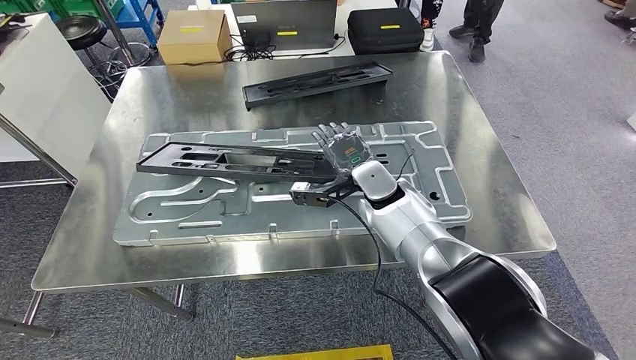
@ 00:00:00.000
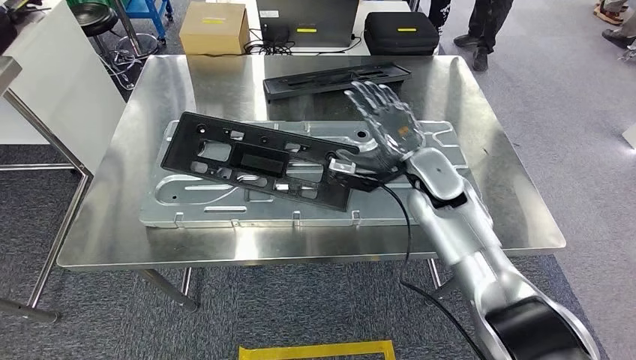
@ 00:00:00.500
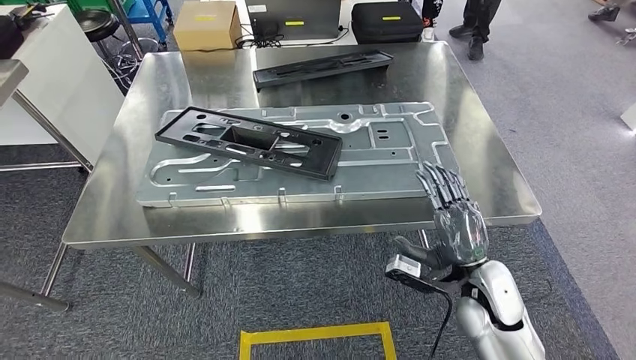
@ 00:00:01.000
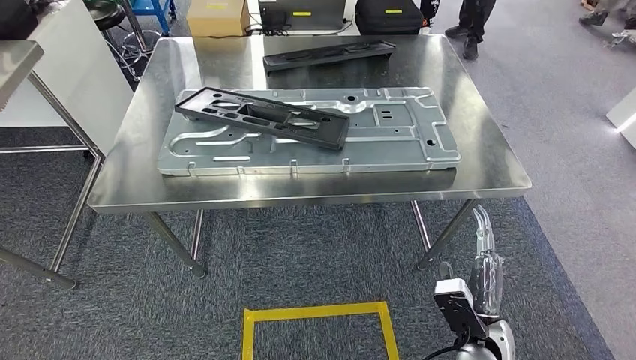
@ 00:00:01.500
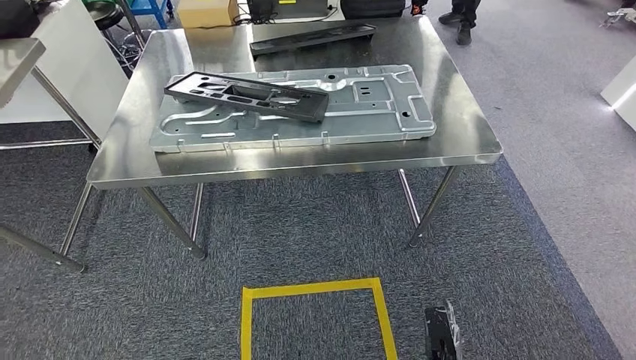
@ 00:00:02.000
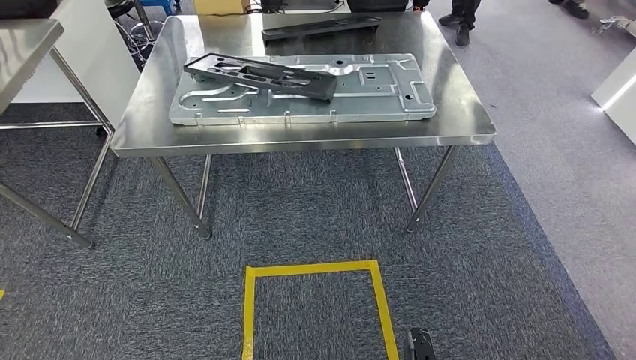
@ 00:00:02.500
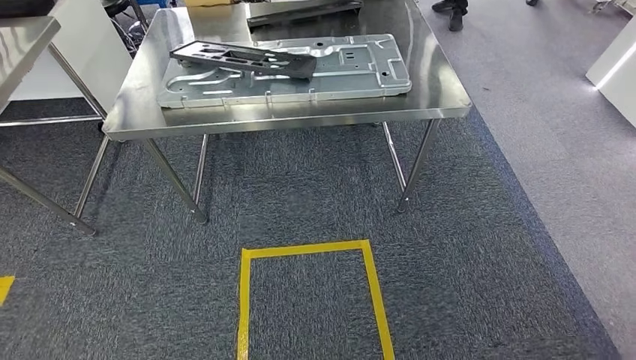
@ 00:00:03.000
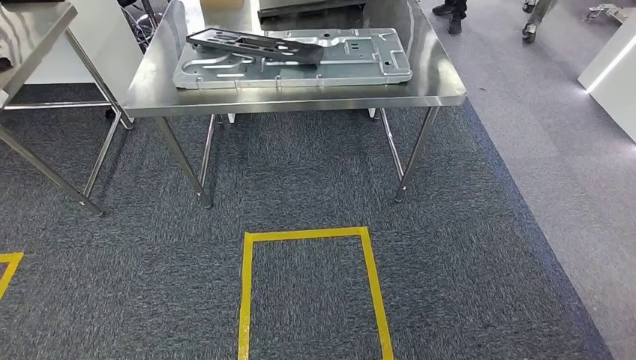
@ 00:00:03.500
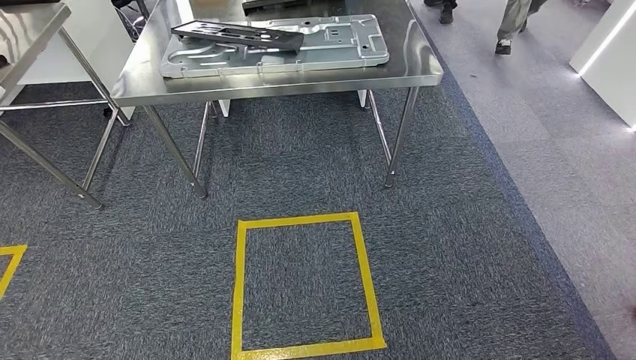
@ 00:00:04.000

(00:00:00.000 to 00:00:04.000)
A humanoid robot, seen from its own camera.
Step, 00:00:01.500 - 00:00:04.000: Move to the initial position of the shelf.

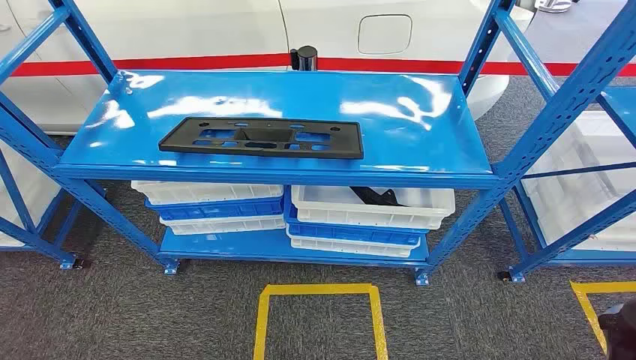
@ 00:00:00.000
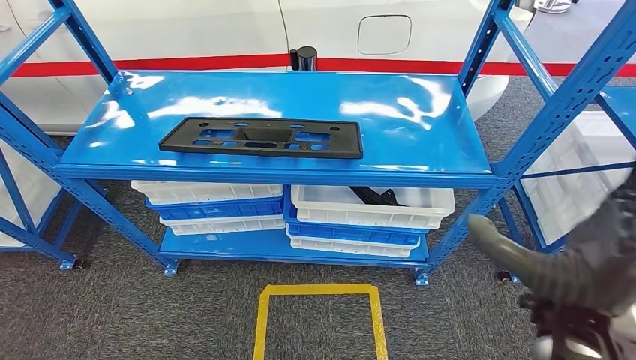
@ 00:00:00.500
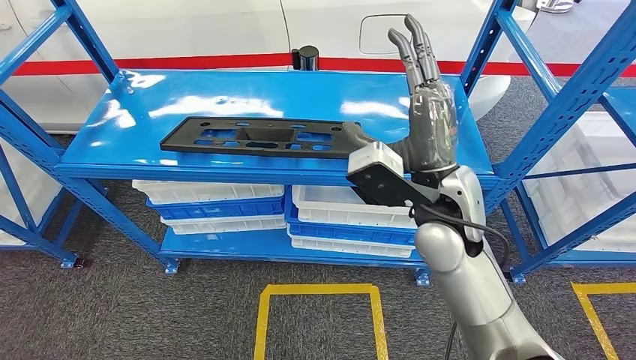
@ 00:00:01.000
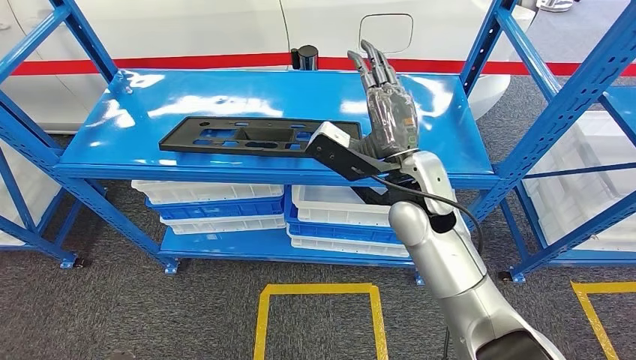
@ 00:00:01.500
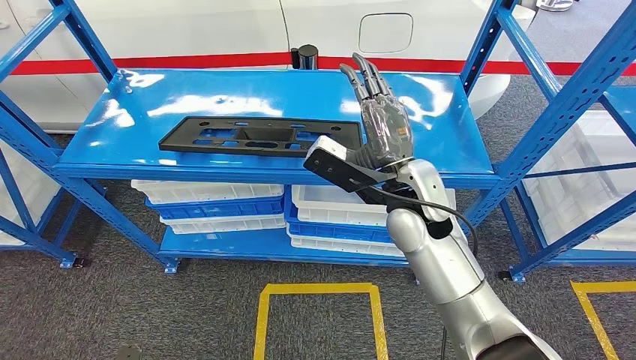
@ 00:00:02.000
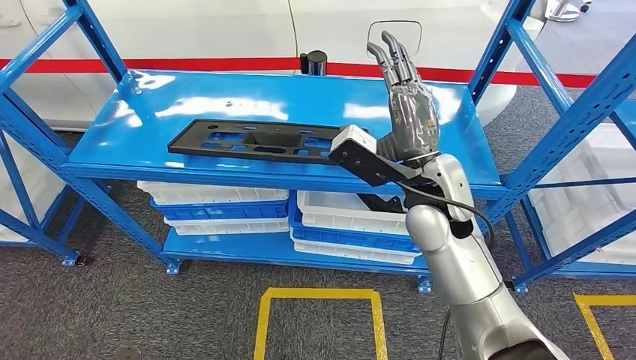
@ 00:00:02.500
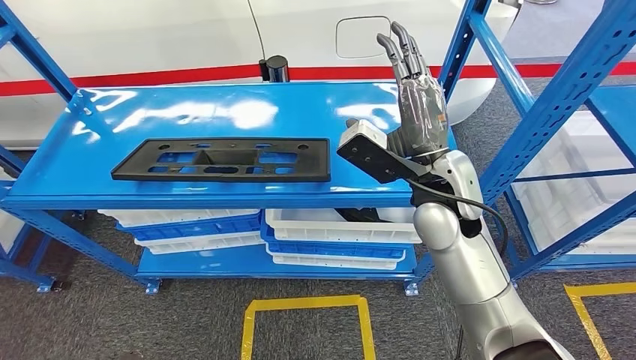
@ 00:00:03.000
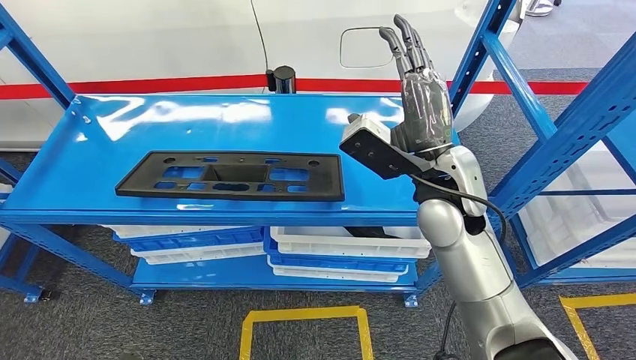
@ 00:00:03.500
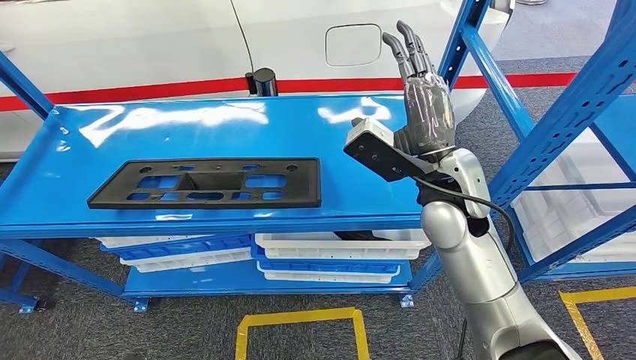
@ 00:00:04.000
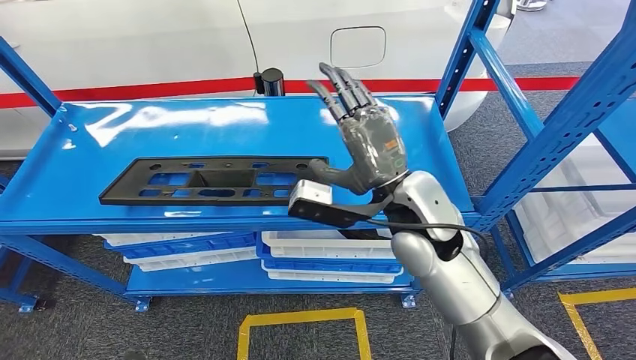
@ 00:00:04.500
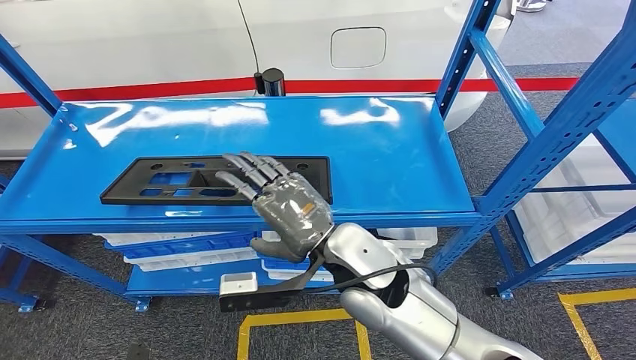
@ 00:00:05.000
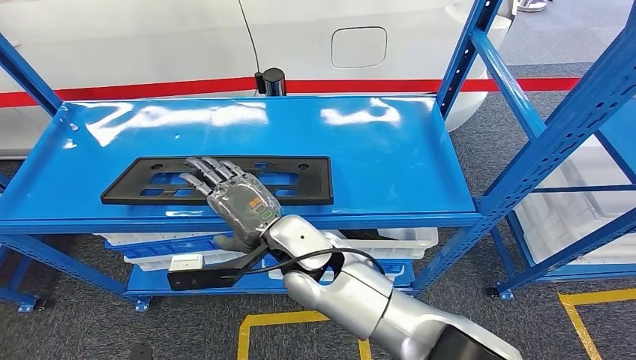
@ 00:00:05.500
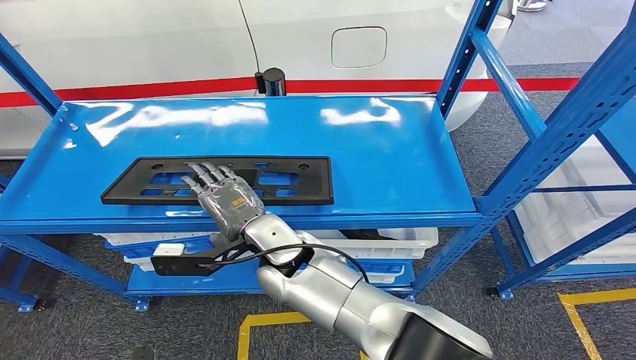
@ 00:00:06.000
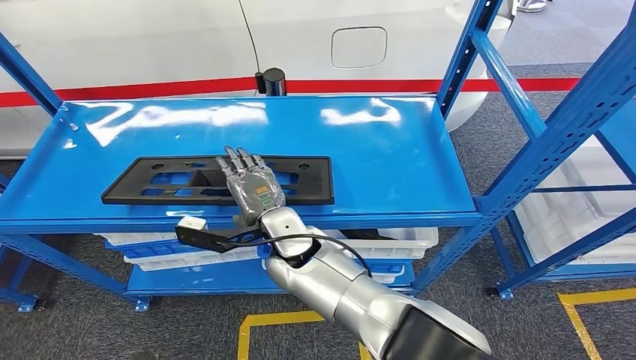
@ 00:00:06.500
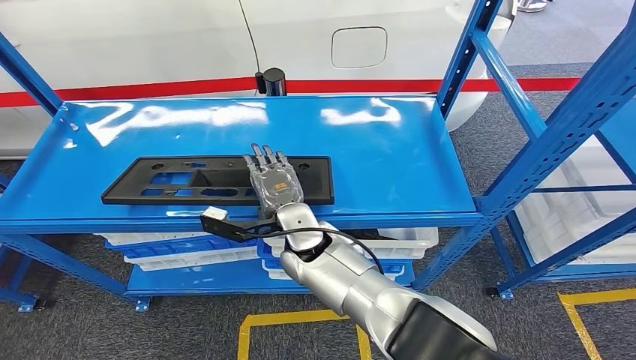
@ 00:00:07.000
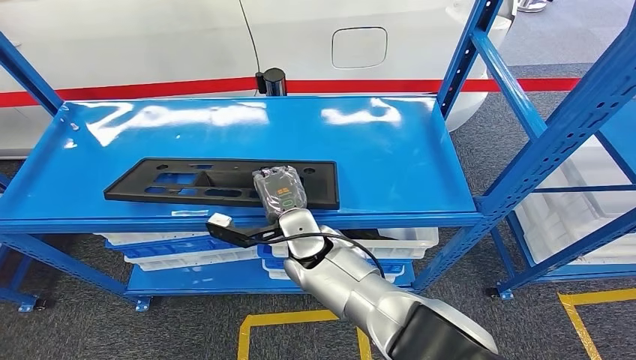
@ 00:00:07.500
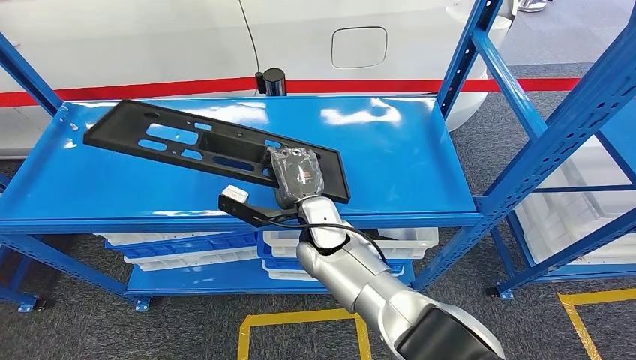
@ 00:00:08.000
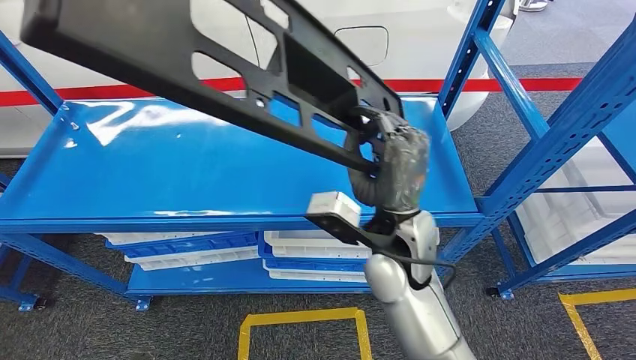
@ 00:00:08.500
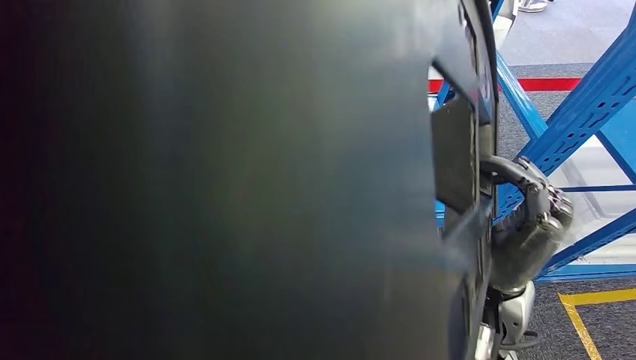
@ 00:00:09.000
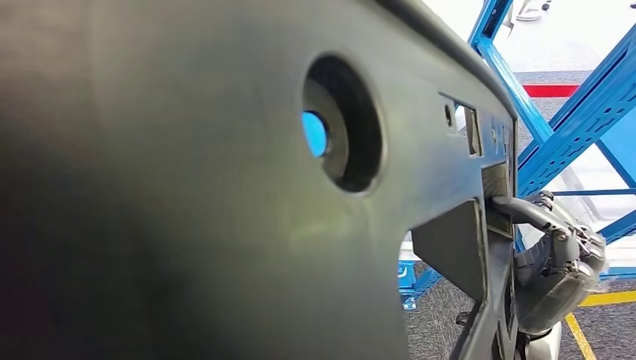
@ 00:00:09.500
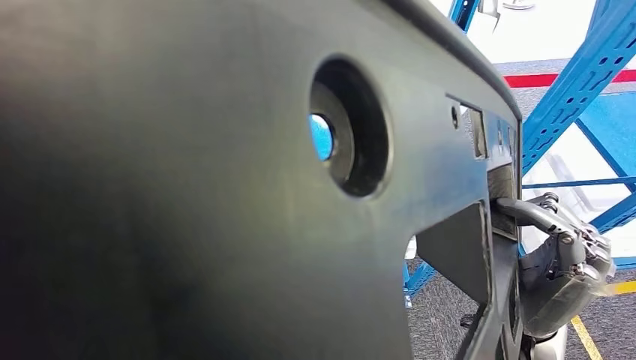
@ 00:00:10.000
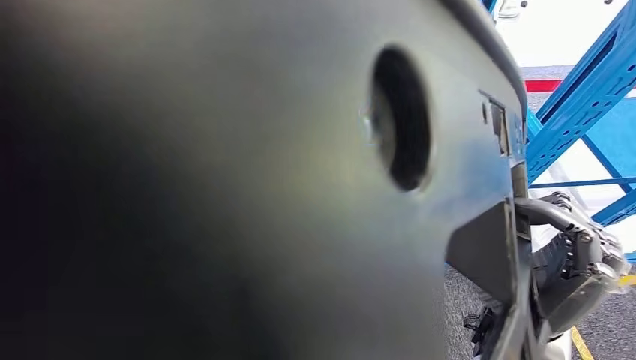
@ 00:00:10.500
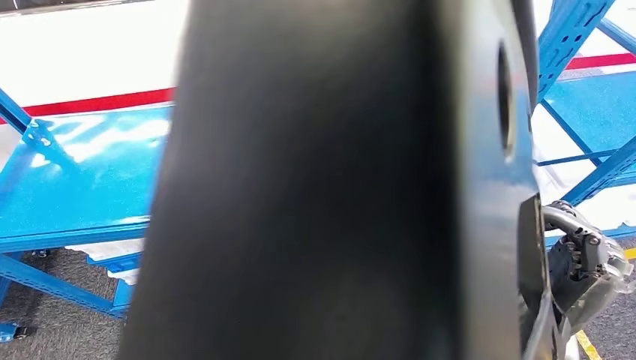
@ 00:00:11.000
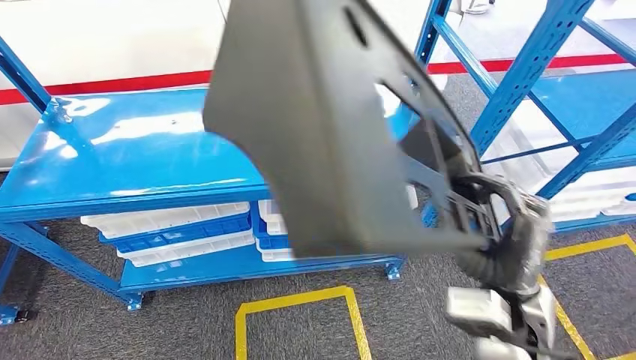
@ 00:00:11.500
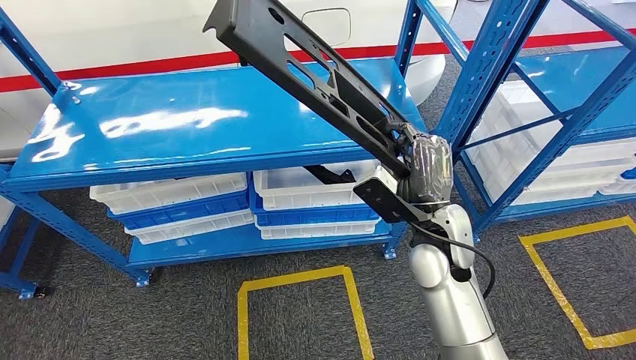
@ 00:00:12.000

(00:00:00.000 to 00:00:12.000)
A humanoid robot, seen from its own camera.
Step, 00:00:00.000 - 00:00:10.000: Pick up the large material from the shelf.
00:00:06.000 - 00:00:08.000: The right hand goes about 5 cm to the right.

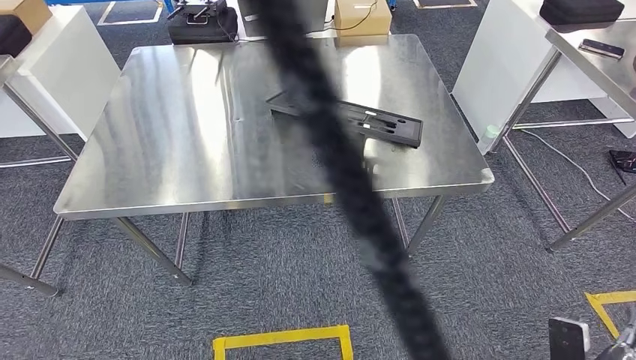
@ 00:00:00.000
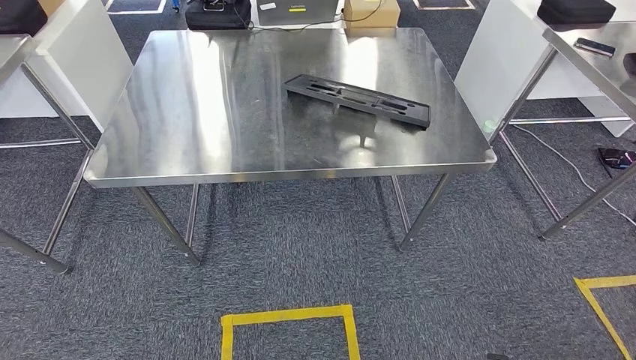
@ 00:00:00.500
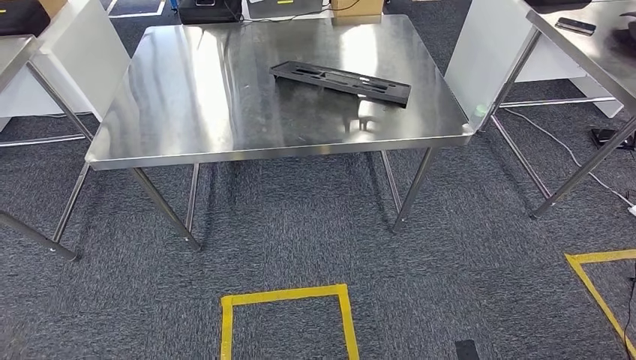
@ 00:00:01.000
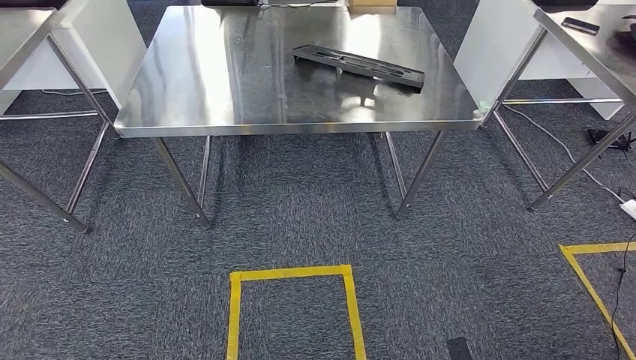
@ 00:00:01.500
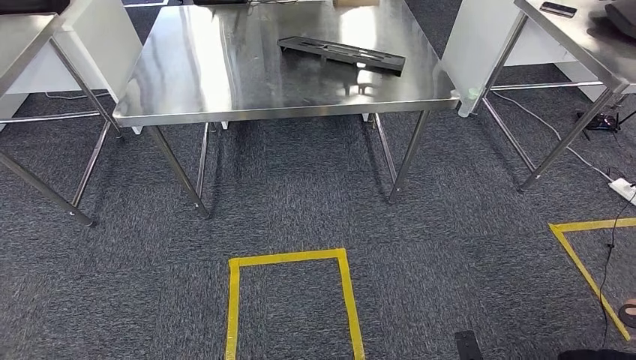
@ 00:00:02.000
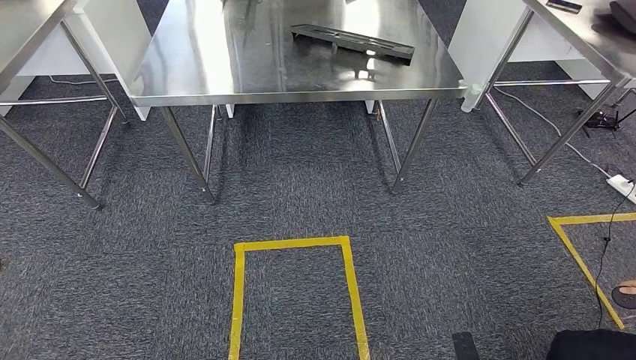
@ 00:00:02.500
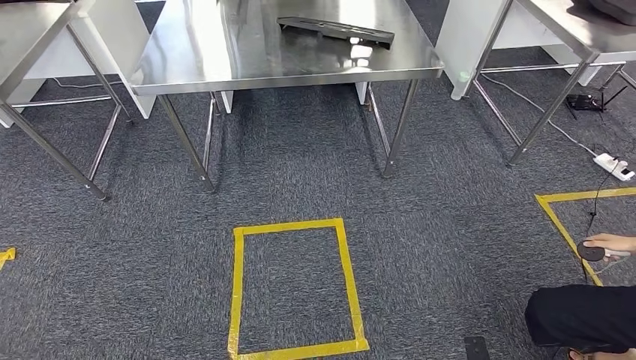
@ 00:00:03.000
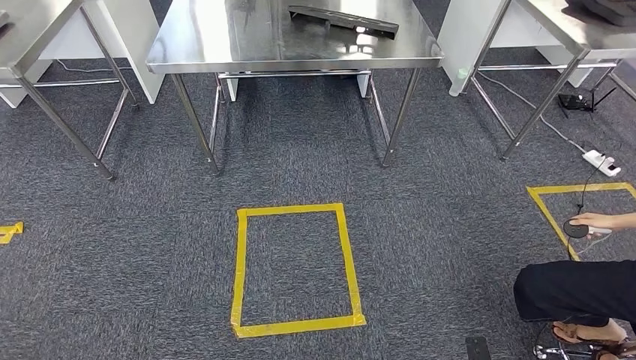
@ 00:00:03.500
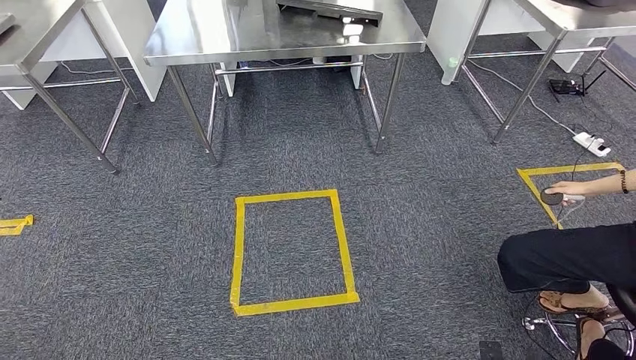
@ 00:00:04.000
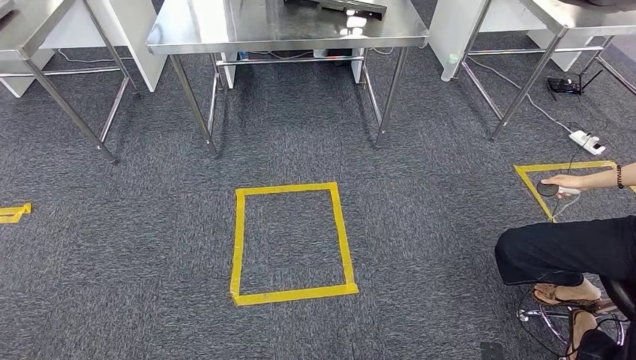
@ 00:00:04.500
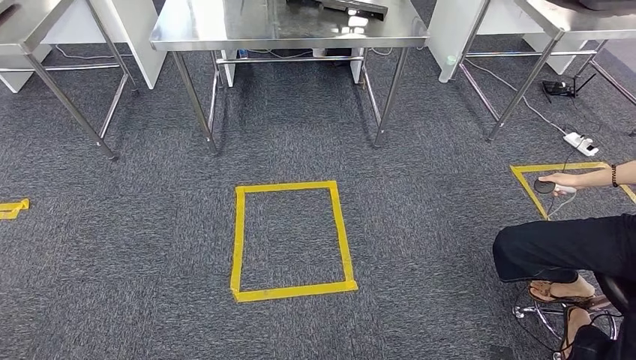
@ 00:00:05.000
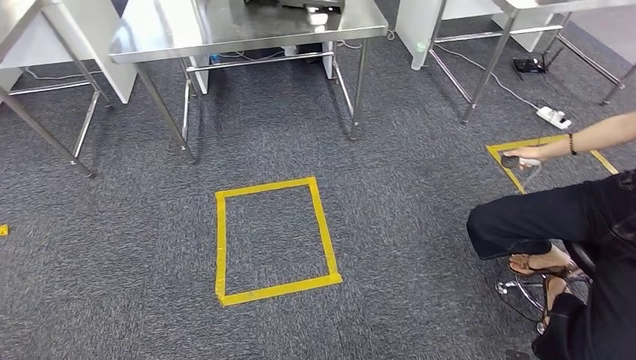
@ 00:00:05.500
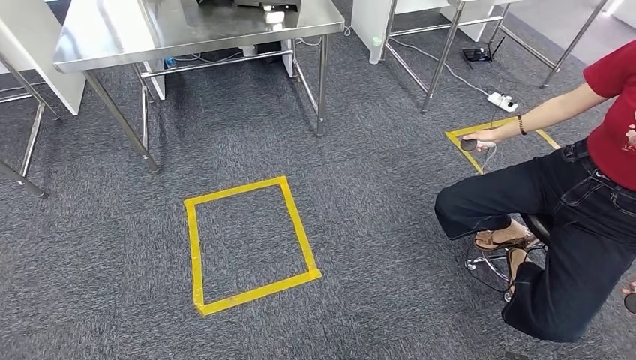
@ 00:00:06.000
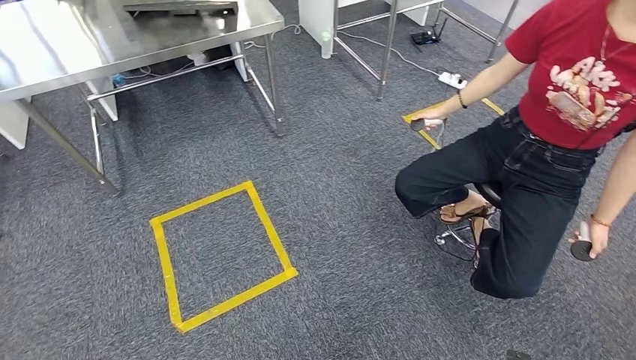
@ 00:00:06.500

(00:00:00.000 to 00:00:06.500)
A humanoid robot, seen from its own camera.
Step, 00:00:00.000 - 00:00:04.000: Insert the large material into the corresponding slot on the workbench.
